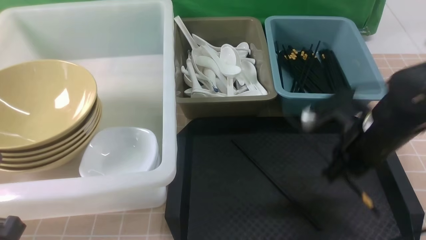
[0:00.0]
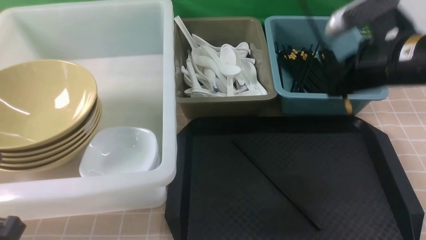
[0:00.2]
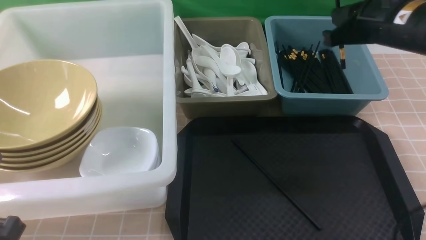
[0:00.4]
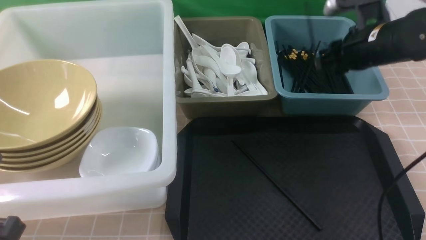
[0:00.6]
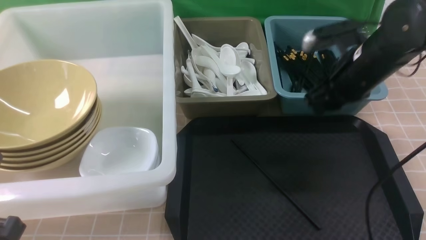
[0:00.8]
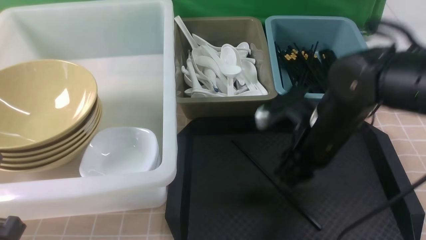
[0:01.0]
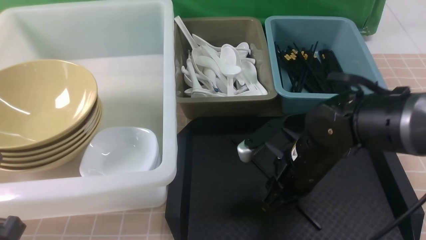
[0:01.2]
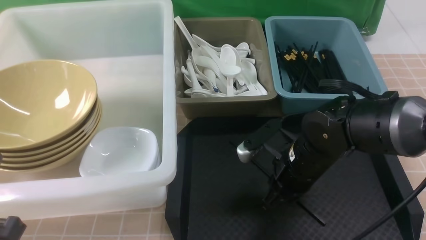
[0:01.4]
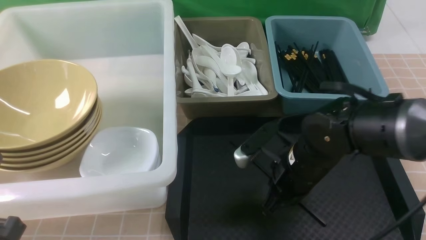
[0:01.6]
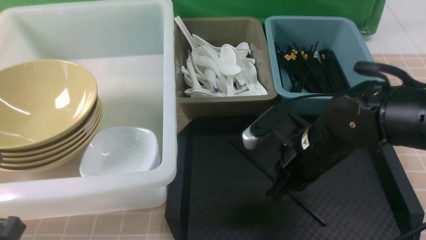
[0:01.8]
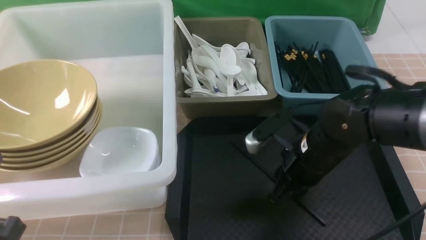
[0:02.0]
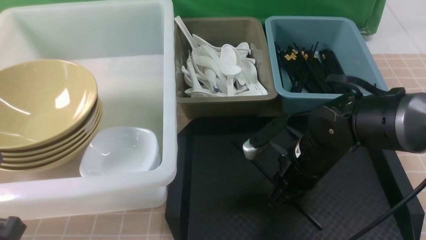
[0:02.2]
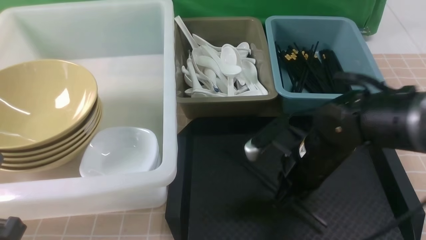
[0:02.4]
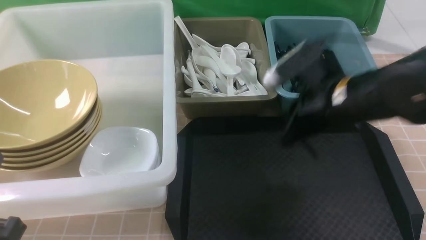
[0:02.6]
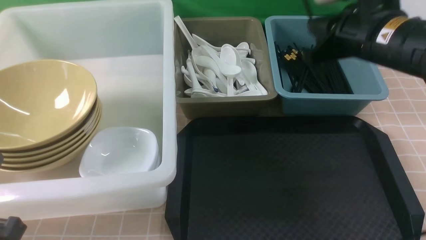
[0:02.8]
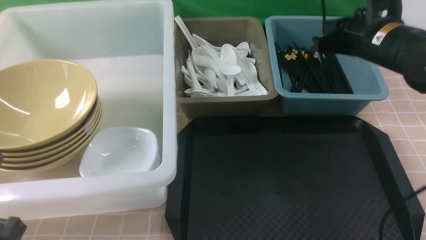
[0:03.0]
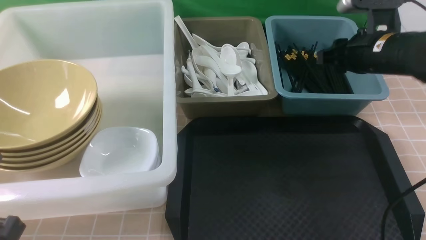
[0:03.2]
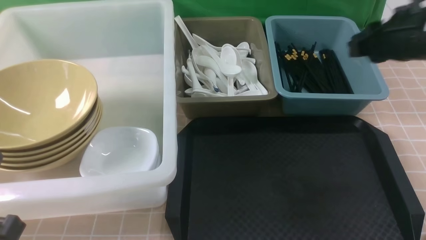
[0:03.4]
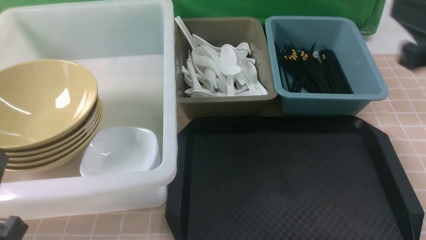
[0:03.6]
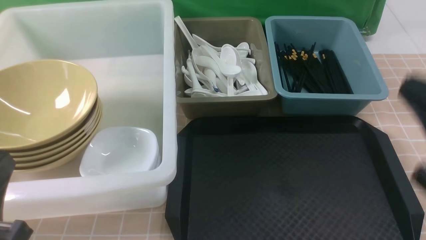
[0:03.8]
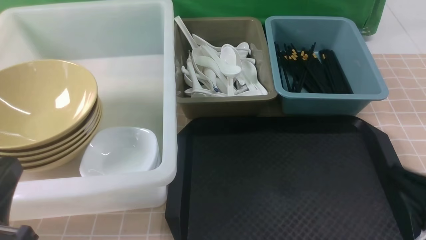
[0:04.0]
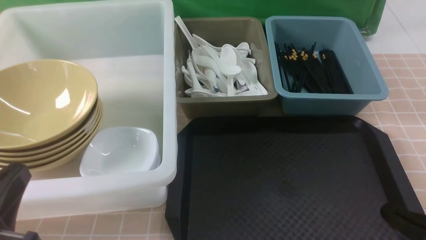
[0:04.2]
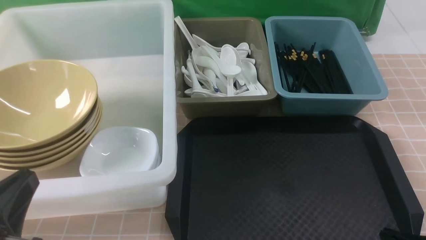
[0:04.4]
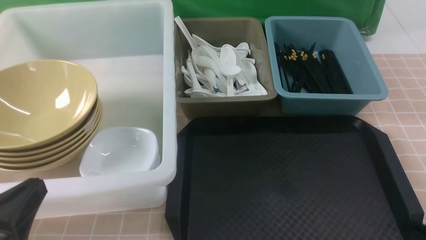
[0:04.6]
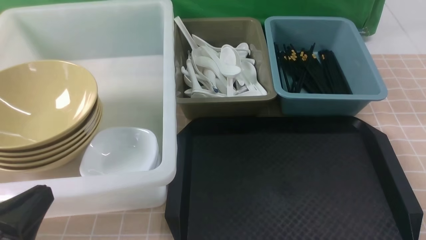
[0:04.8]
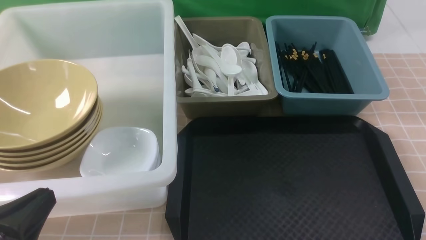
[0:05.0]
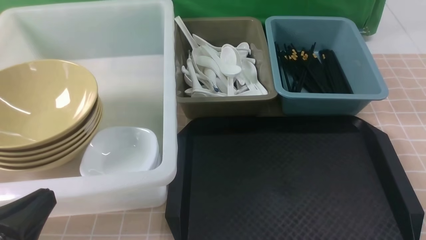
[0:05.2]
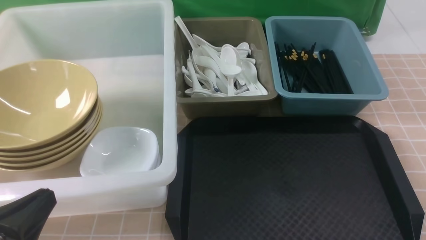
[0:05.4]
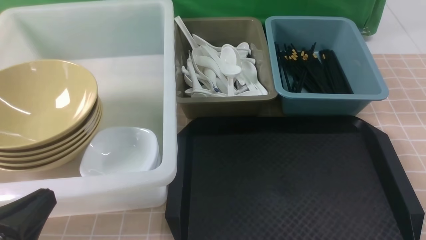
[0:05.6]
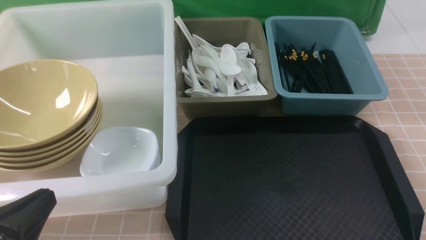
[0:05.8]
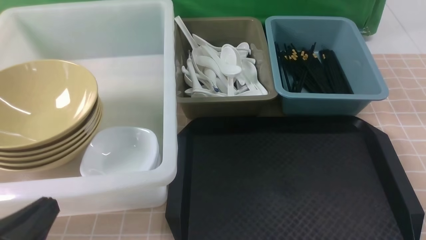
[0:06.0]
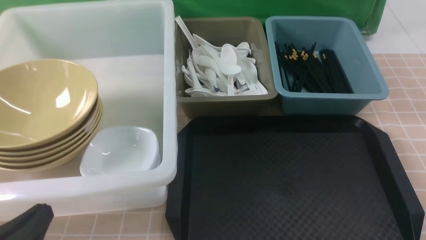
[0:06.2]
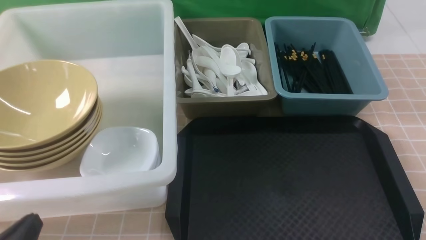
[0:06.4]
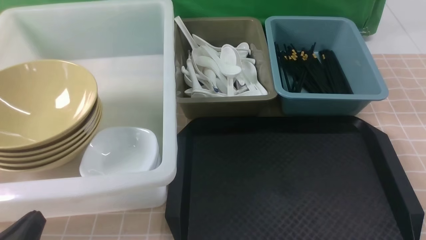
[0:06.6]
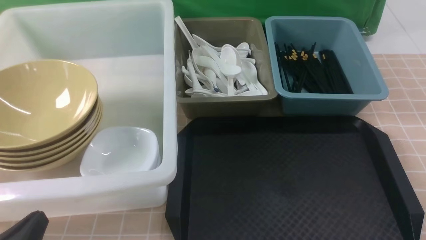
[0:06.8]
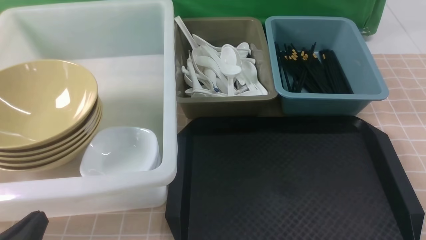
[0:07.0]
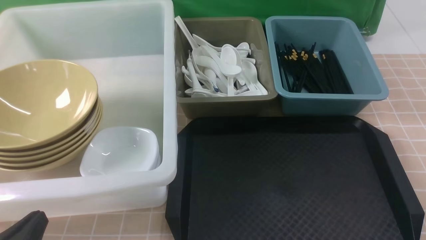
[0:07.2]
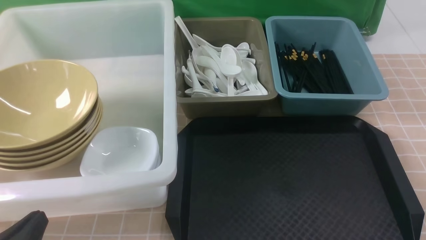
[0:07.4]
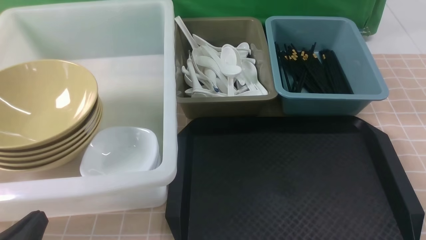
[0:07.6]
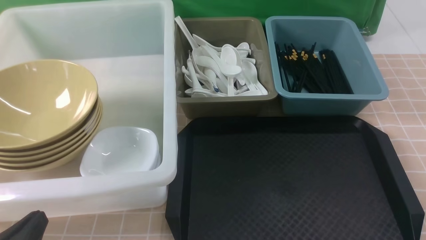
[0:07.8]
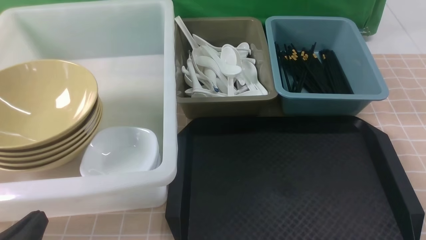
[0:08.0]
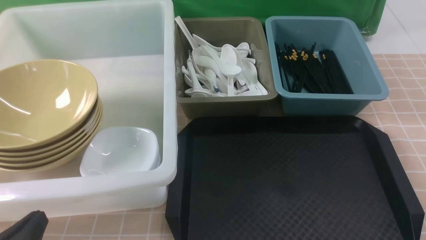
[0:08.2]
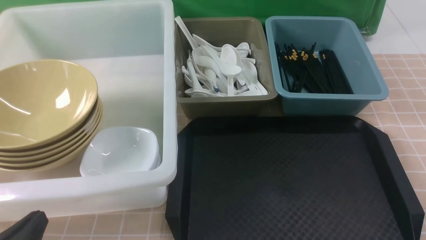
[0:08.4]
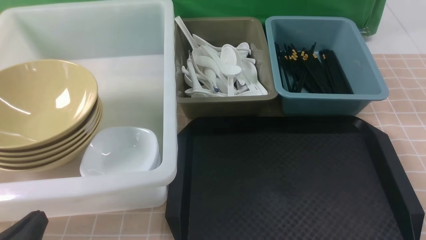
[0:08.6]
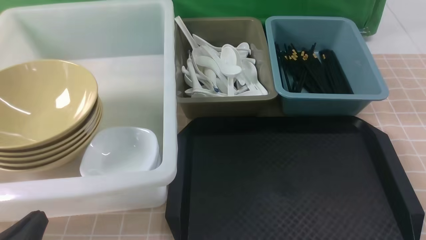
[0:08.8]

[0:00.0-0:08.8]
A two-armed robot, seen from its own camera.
Task of the whole recording: on brown table put chopsticks spoon bowls plates into blue grey white boxes.
Step, 0:00.4 to 0:00.8: use the right arm to put a chopstick into the small storage box on the right.
Step, 0:01.0 to 0:02.6: use the right arm to grab a chopstick.
Step, 0:02.8 to 0:03.4: use the right arm to put a chopstick into the small storage box on the right.
0:00.0 to 0:01.4: The right gripper shifts roughly 10 cm to the left and downward, and opens, then closes again.
0:01.4 to 0:03.0: The right gripper travels upward, to the right and forward by some 20 cm.
0:03.0 to 0:04.4: The right gripper heads backward and downward, covering roughly 30 cm, and closes up.
0:05.8 to 0:07.4: The left gripper moves downward, approximately 5 cm.
0:07.4 to 0:08.8: Neither gripper changes place.

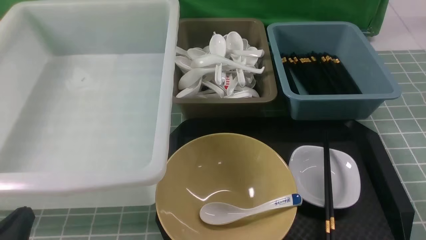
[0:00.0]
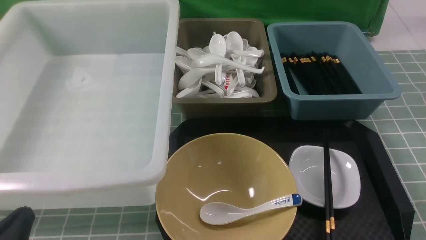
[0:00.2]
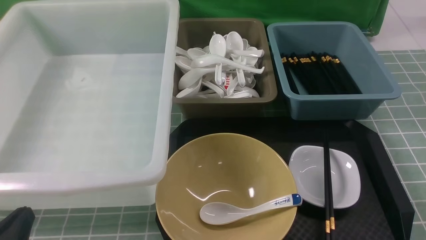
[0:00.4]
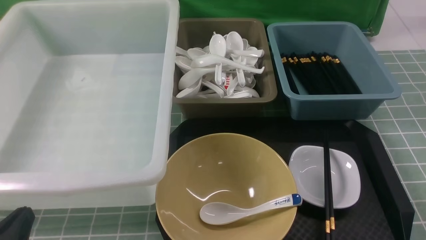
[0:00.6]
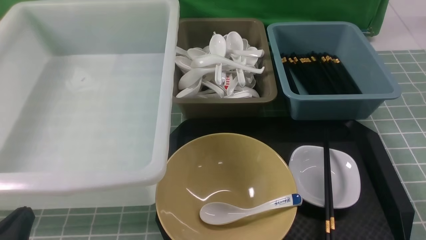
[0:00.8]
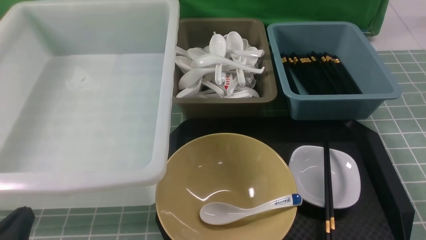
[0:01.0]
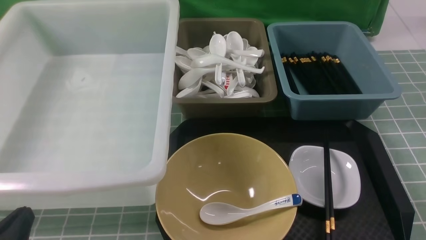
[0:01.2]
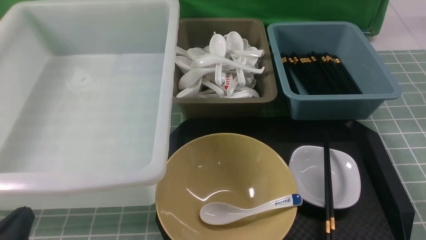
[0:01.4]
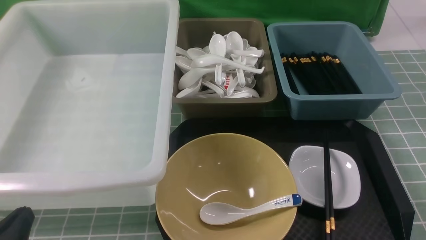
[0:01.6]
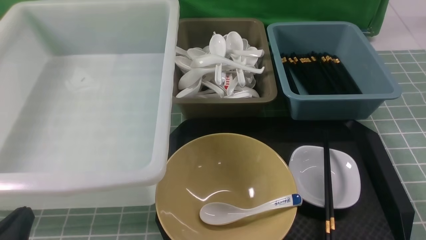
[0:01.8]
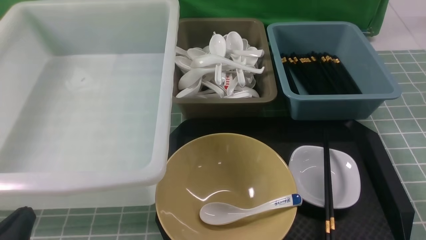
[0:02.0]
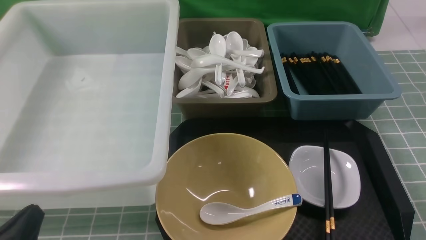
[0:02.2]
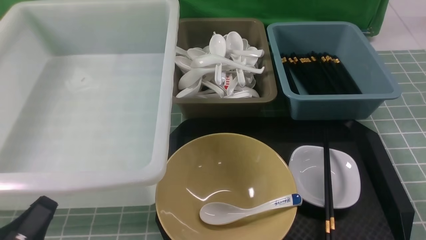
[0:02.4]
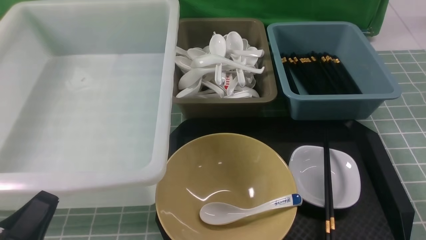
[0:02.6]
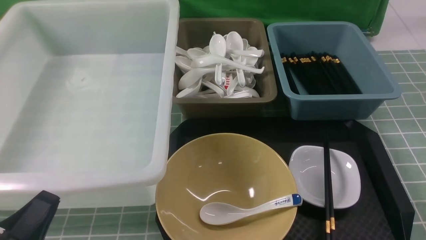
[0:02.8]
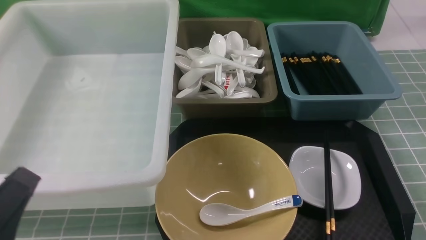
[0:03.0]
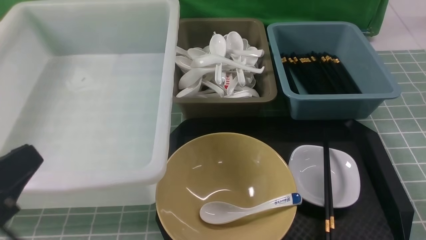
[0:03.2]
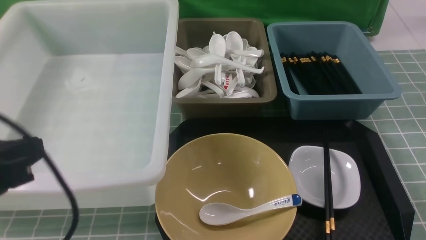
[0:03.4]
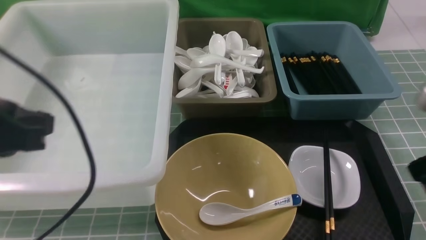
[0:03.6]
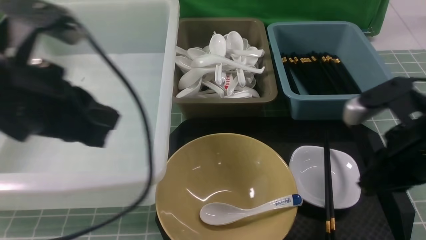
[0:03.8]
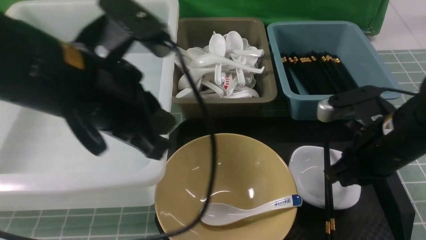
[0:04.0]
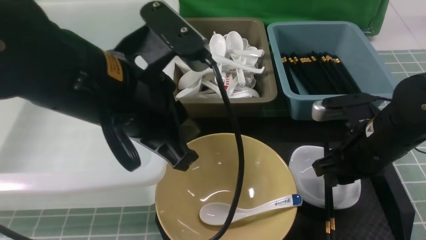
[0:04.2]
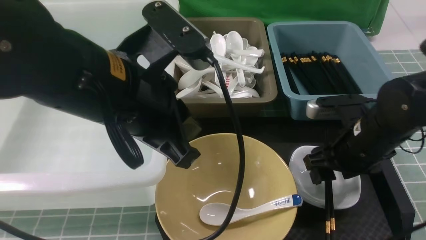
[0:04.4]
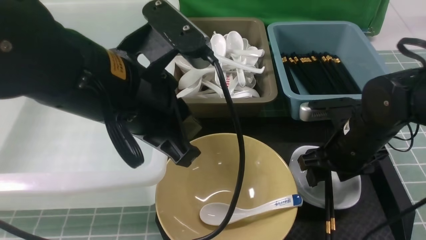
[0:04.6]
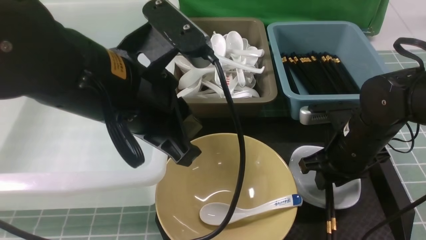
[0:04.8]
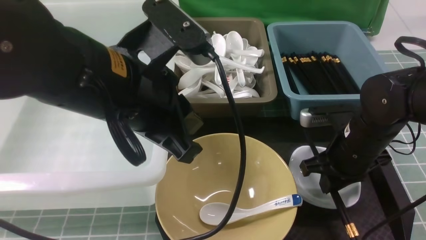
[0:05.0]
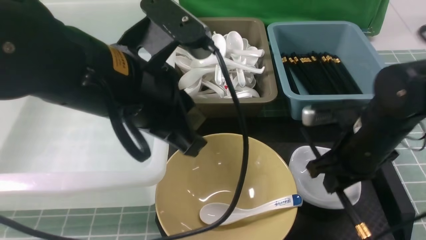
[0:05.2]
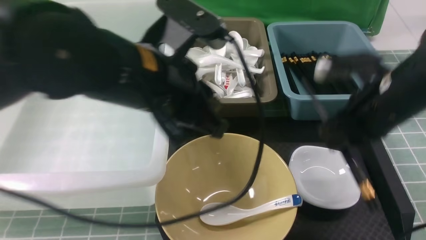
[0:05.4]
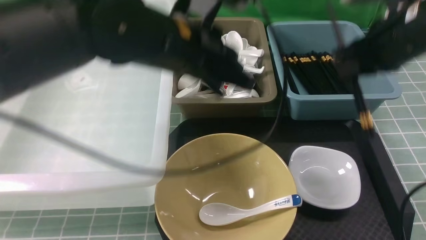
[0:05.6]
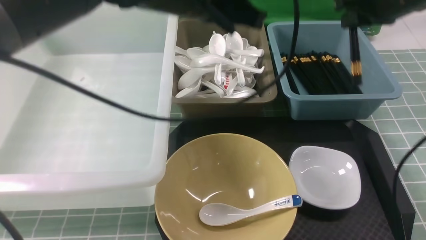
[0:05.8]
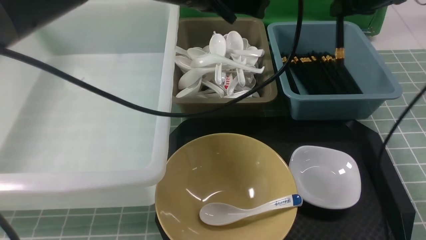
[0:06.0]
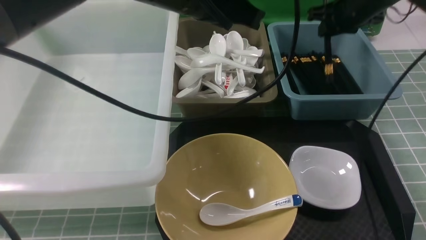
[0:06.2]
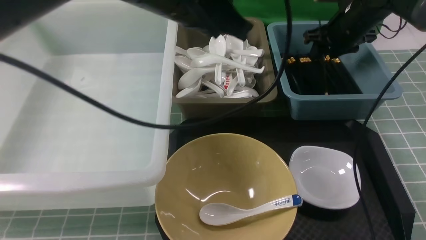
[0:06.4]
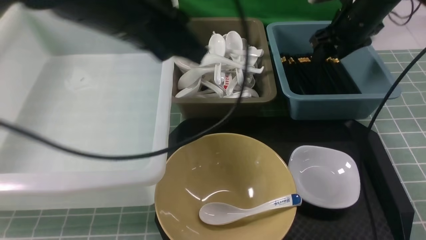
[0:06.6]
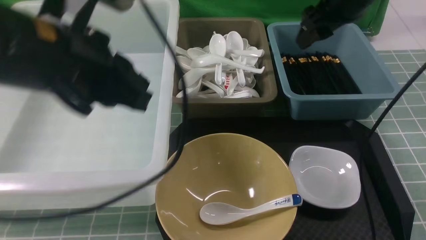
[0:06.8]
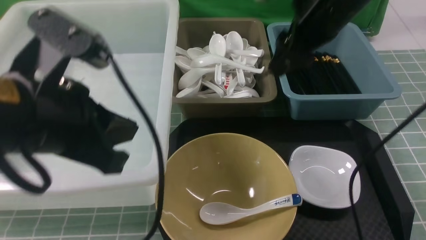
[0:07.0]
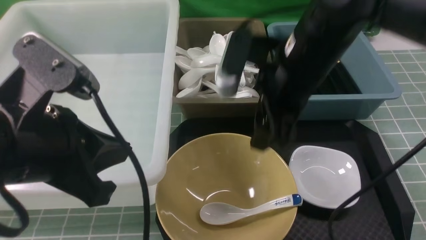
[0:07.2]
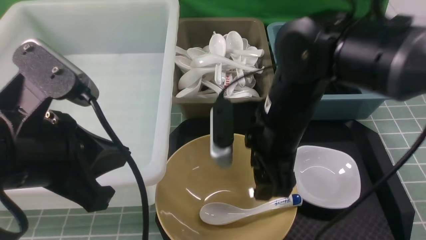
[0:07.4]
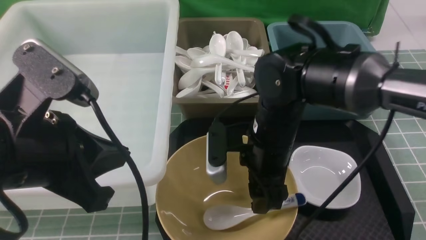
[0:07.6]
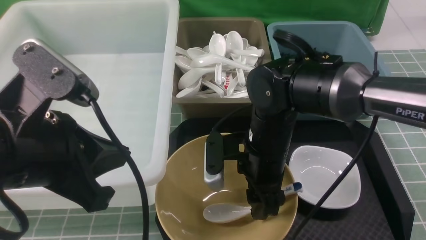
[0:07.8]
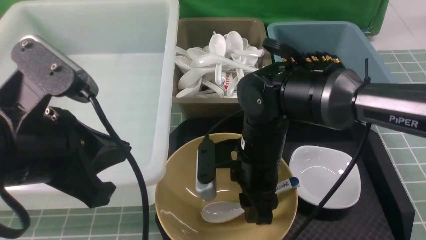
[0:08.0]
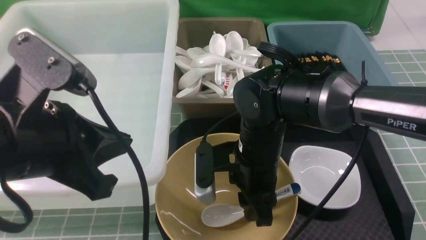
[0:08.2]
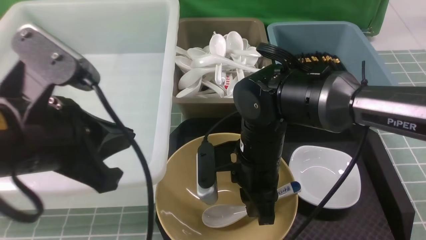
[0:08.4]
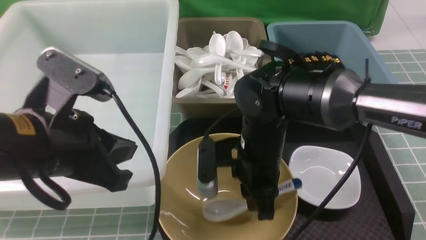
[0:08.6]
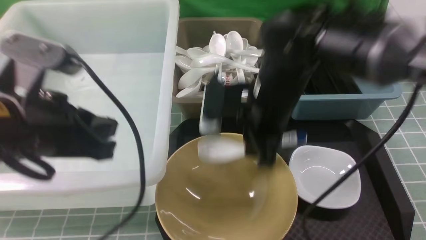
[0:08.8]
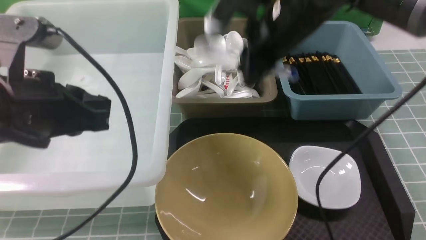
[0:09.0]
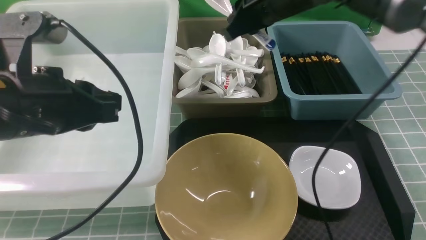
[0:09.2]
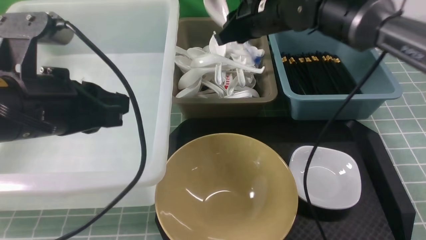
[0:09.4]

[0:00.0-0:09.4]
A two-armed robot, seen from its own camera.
Task of the whole recording: on blue table put chopsticks spoon bowls plates into blue grey white boxes.
Step, 0:00.0 to 0:05.2: use the right arm to grab the chopsticks.
Step, 0:05.4 to 0:06.6: use the right arm to put the chopsticks into the small storage box on the right.
Step, 0:06.8 to 0:08.6: use the right arm to grab the soup spoon in the middle.
0:00.0 to 0:01.6: Both grippers stay about where they are.
0:01.6 to 0:03.2: The grippers both shift upward by approximately 15 cm.
0:03.2 to 0:04.8: The right gripper moves forward, downward and to the left, approximately 25 cm, and opens up; the left gripper heads to the right and forward, covering roughly 20 cm.
0:04.8 to 0:06.2: The left gripper goes some 10 cm forward. The right gripper moves forward and upward, roughly 25 cm.
0:06.2 to 0:07.8: The left gripper heads backward, to the left and downward, covering about 20 cm. The right gripper moves backward and to the left, about 30 cm.
0:07.8 to 0:09.4: The left gripper moves forward, about 5 cm. Meanwhile the right gripper heads forward and upward, covering roughly 20 cm, and closes, then opens again.
